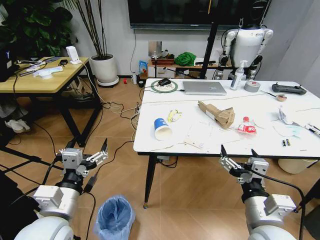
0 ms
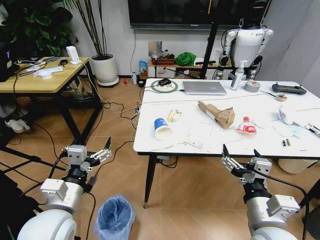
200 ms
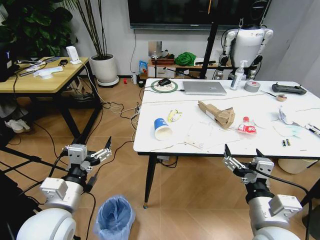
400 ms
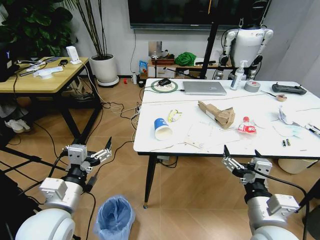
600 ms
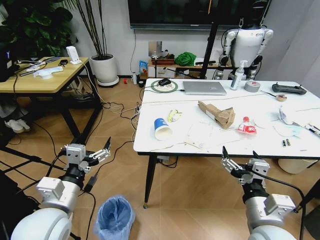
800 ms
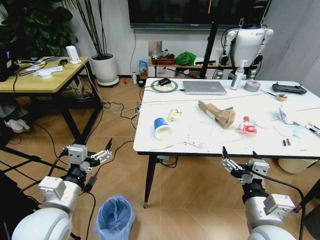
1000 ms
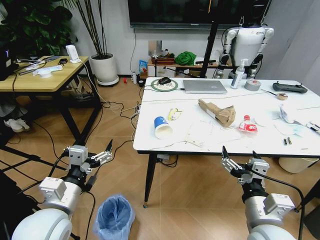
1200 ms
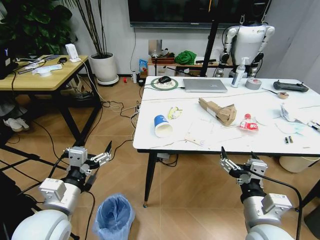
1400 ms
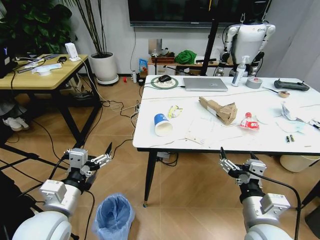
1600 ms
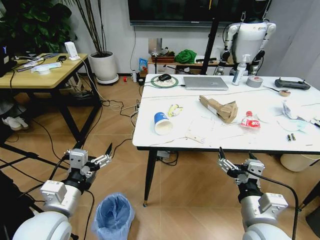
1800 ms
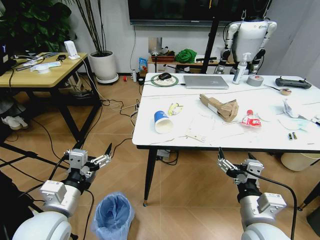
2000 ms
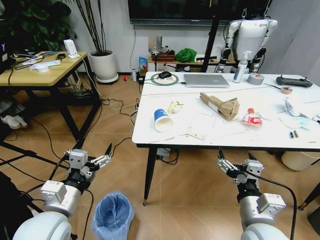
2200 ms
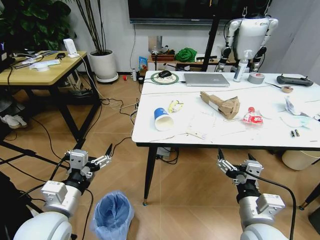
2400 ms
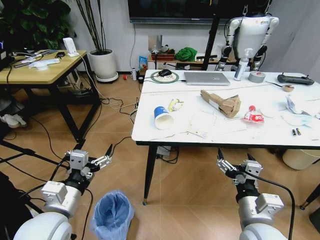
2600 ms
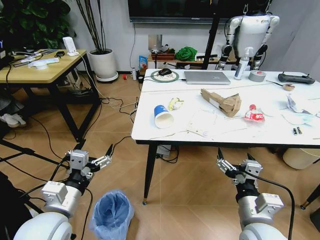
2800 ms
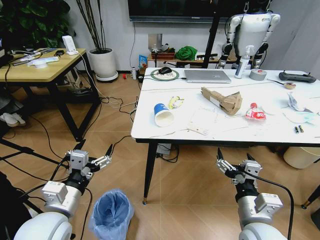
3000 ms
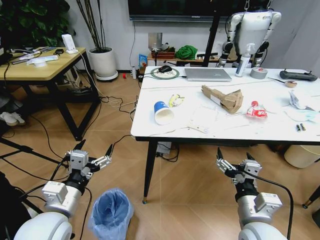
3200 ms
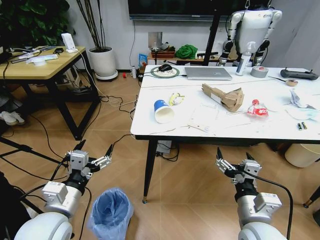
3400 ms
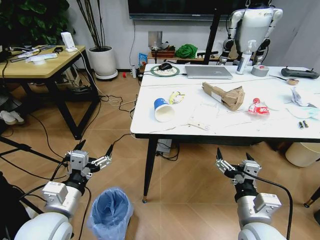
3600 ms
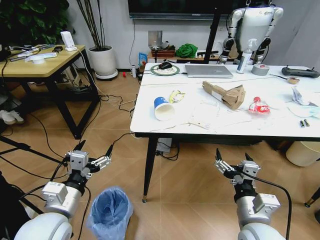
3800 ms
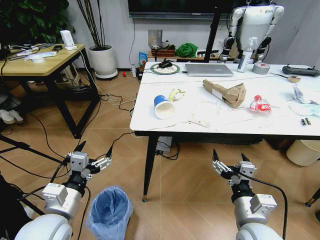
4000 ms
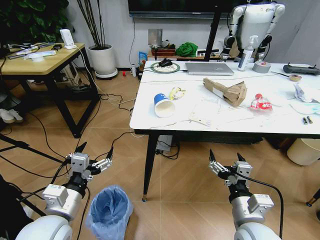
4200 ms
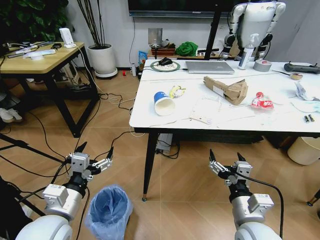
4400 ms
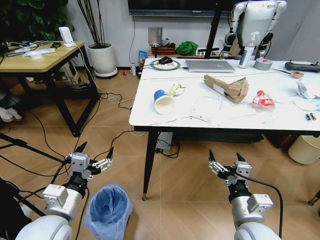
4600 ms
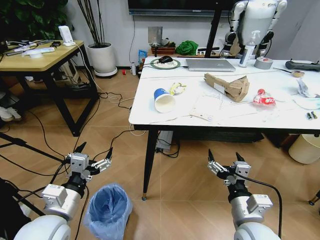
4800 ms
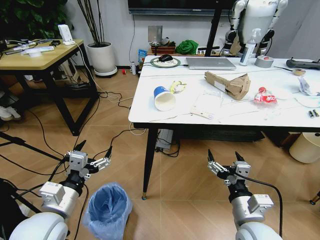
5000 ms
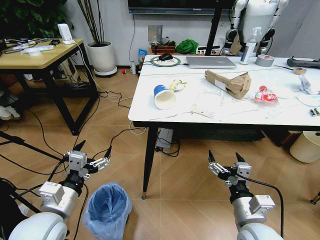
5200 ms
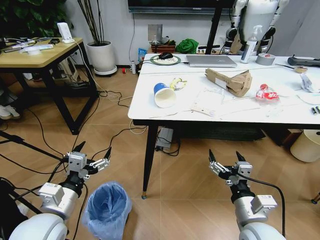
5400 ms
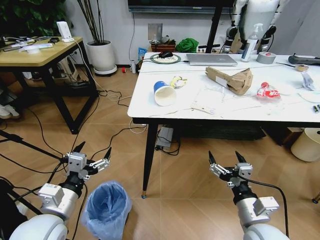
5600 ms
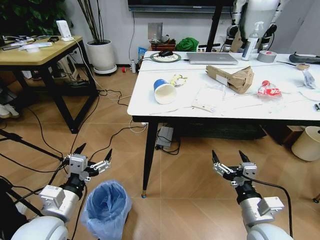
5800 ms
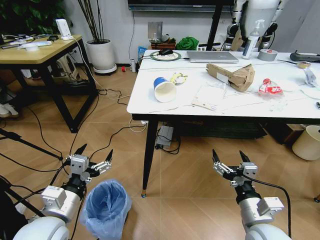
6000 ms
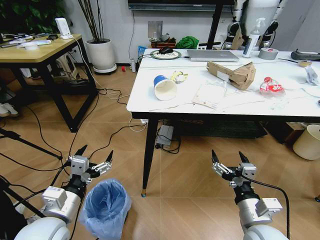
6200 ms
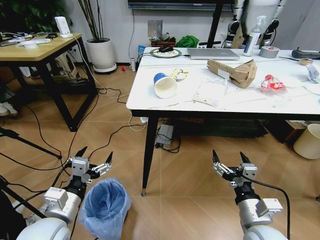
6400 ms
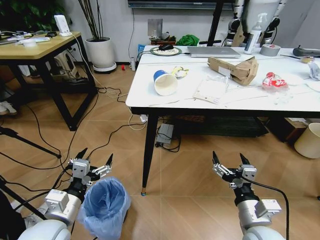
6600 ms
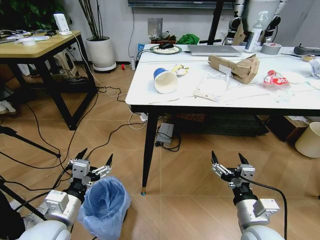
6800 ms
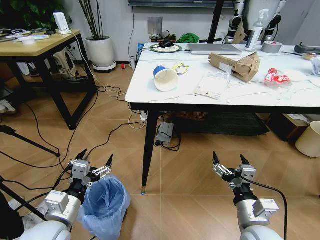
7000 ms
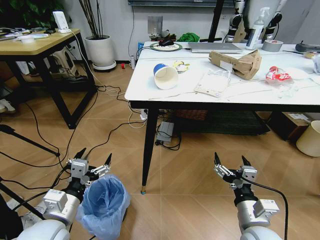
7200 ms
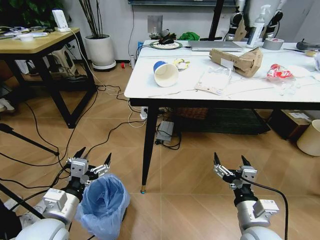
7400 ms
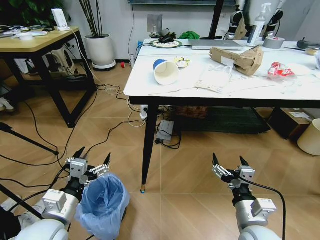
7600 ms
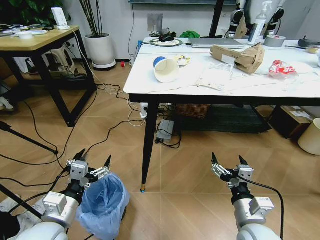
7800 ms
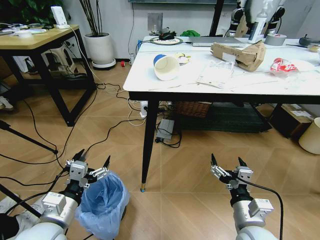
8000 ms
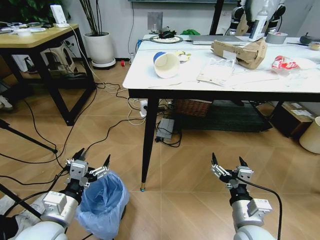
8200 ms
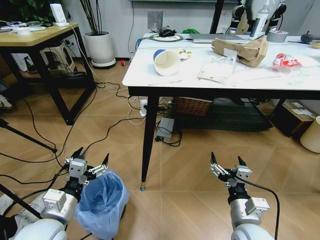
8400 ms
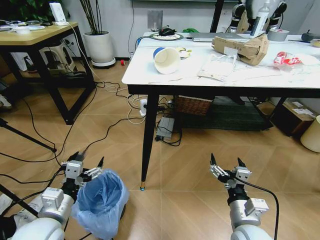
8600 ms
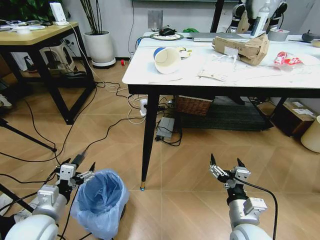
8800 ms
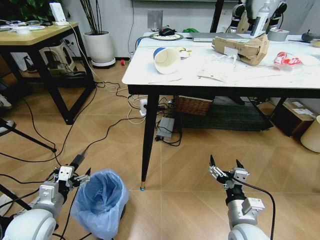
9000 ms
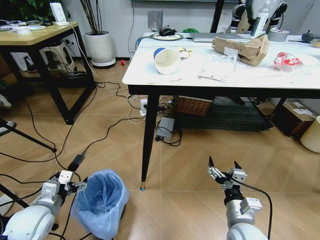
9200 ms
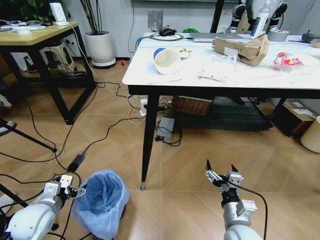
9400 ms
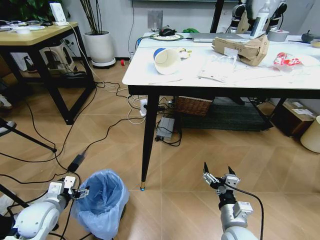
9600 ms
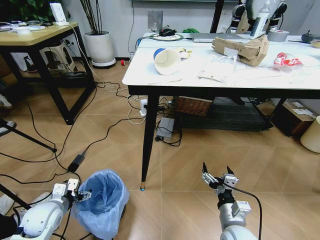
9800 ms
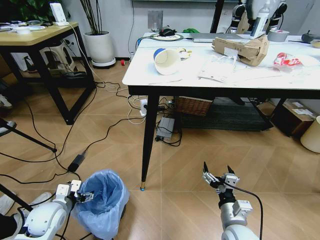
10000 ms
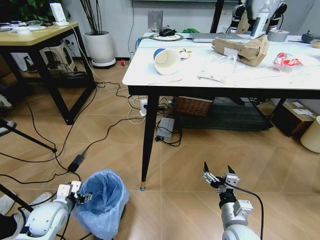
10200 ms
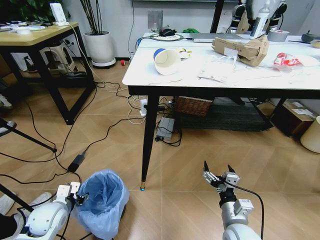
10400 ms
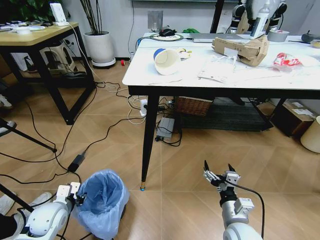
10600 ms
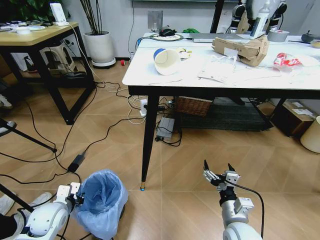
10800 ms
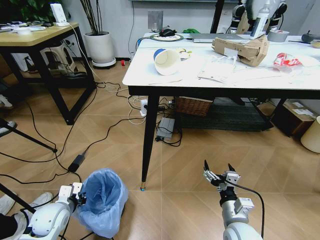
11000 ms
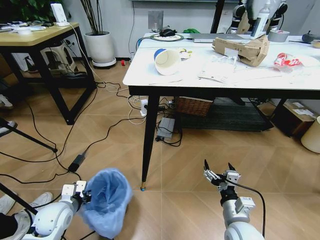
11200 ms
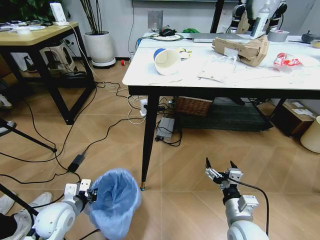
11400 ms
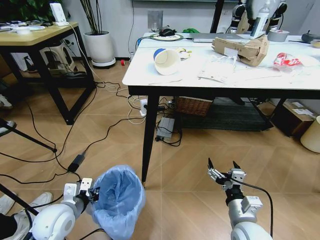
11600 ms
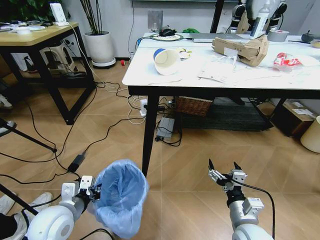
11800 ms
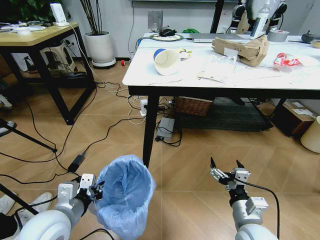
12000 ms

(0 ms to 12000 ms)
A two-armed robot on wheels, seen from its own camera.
Task of the whole recording: Pick up the trash bin and place the trash from the table into it.
7600 ms - 9000 ms: The left gripper goes approximately 5 cm to the left.
9000 ms - 10400 ms: The left gripper heads downward, covering approximately 5 cm, and closes up.
10400 ms - 12000 ms: The left gripper is displaced upward, to the right and backward by some 20 cm, and closes up; the right gripper shifts by roughly 5 cm.

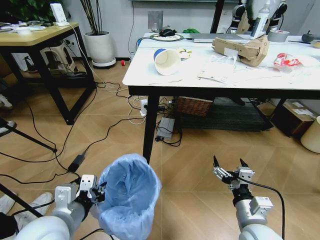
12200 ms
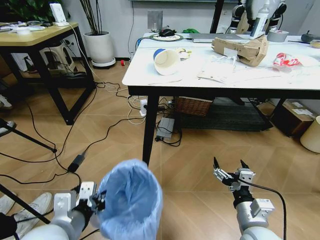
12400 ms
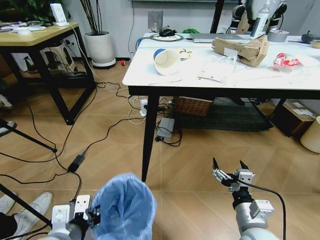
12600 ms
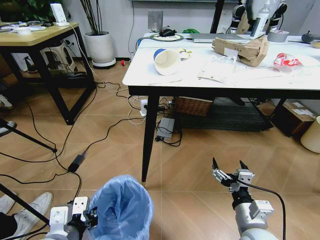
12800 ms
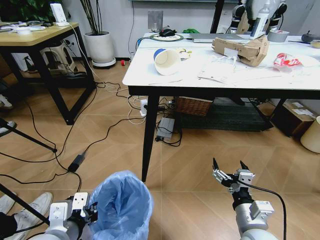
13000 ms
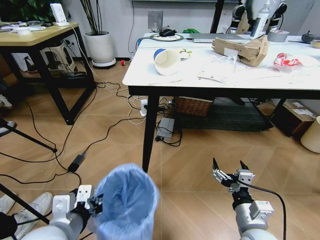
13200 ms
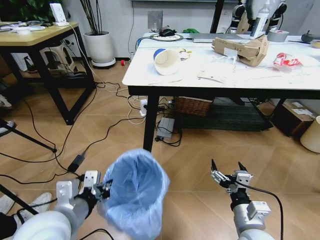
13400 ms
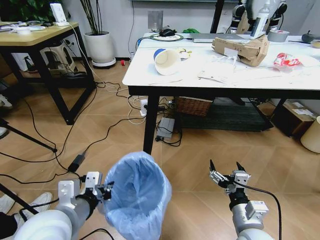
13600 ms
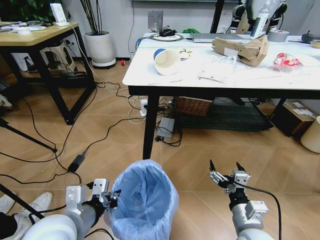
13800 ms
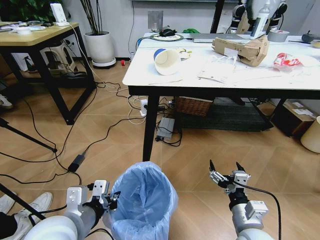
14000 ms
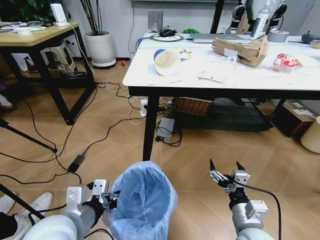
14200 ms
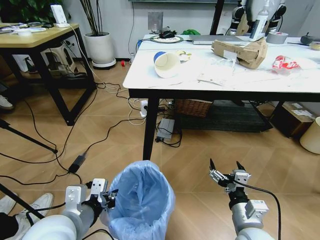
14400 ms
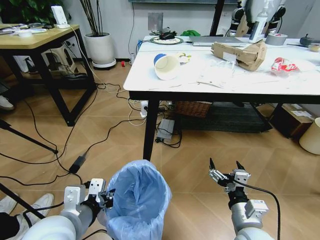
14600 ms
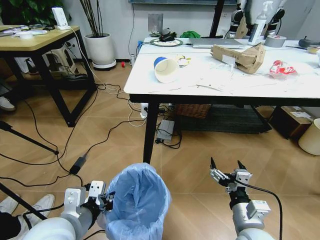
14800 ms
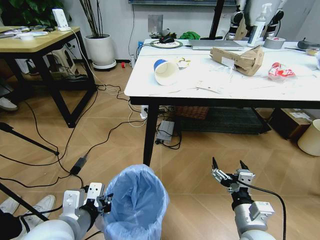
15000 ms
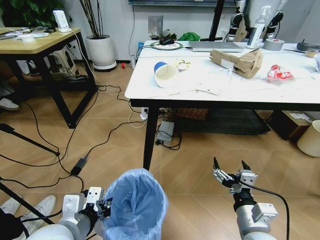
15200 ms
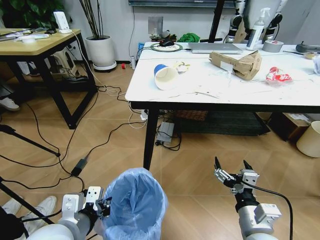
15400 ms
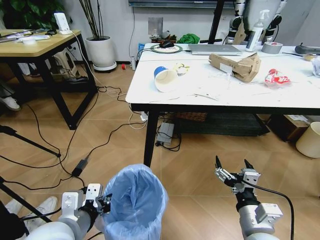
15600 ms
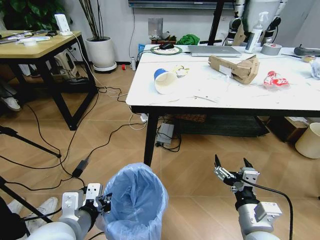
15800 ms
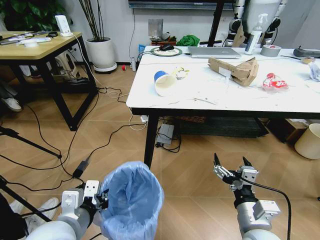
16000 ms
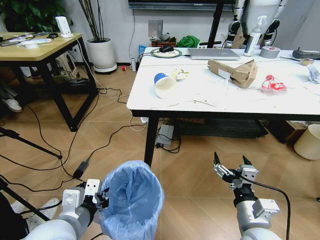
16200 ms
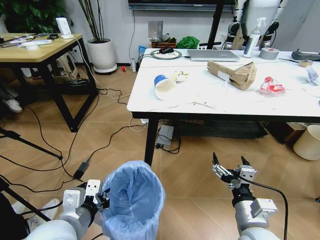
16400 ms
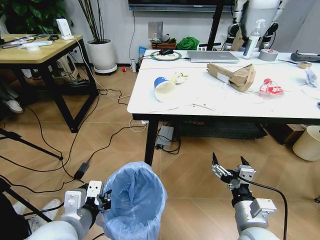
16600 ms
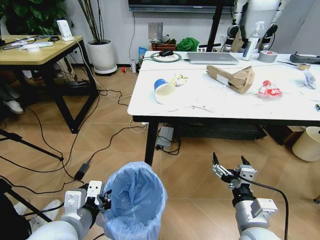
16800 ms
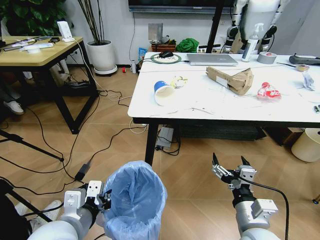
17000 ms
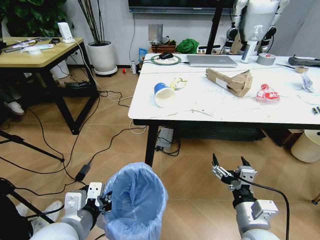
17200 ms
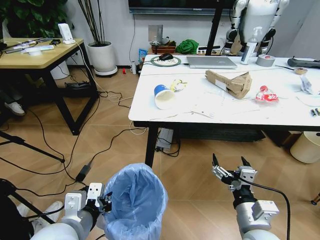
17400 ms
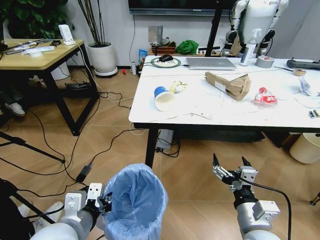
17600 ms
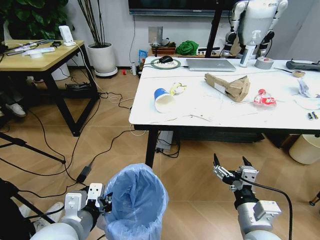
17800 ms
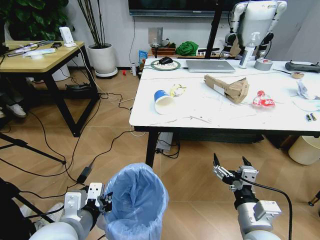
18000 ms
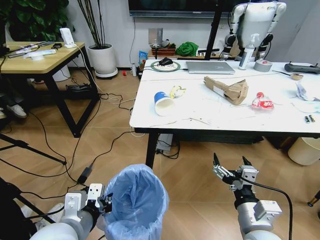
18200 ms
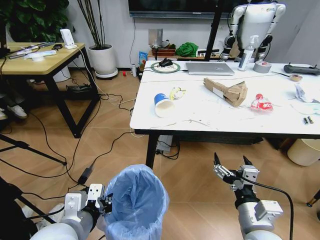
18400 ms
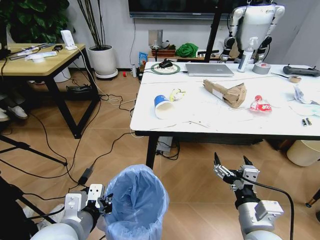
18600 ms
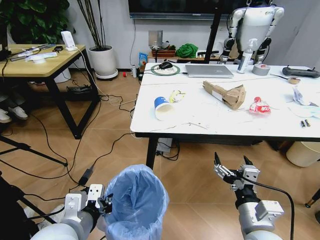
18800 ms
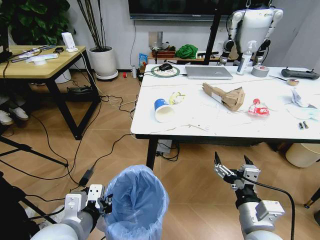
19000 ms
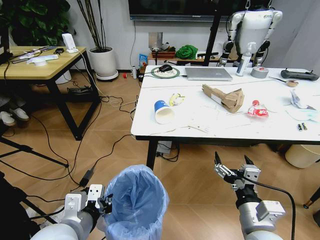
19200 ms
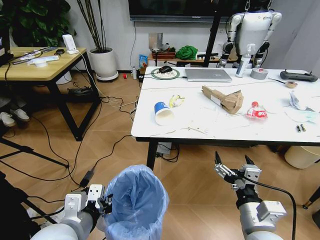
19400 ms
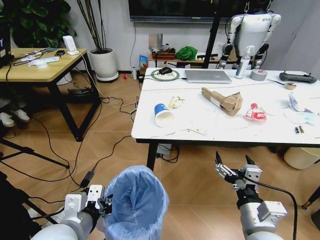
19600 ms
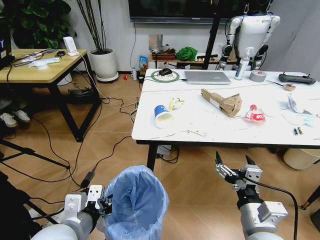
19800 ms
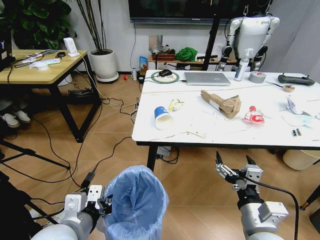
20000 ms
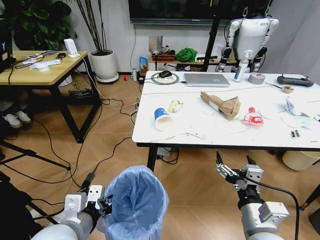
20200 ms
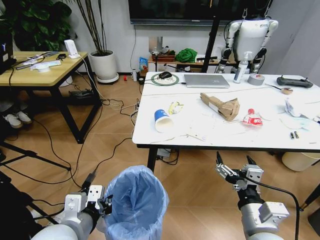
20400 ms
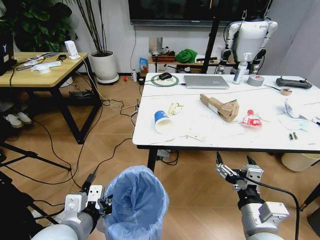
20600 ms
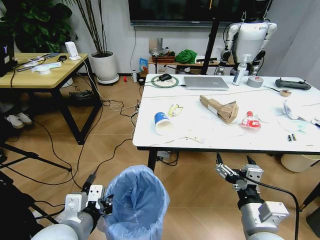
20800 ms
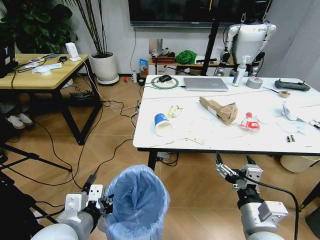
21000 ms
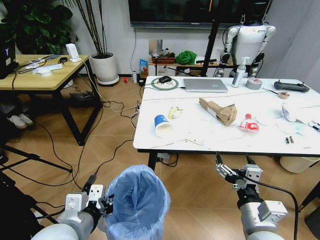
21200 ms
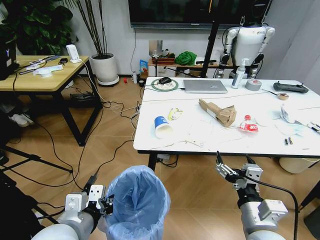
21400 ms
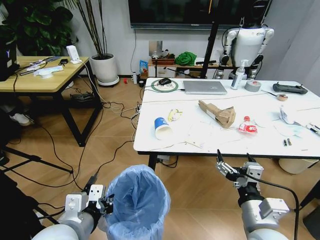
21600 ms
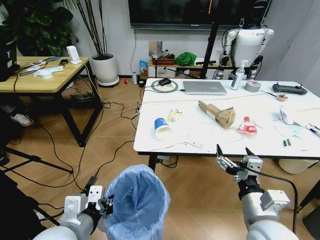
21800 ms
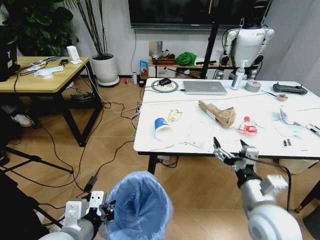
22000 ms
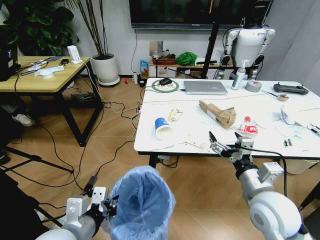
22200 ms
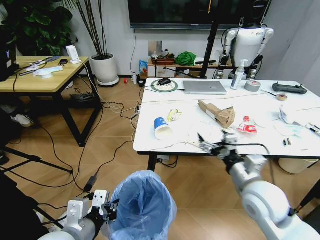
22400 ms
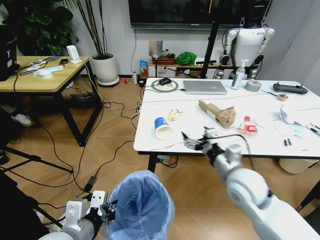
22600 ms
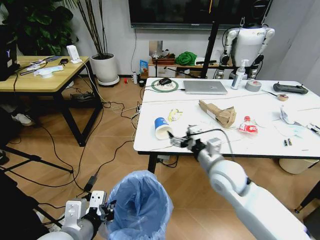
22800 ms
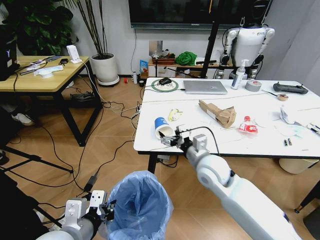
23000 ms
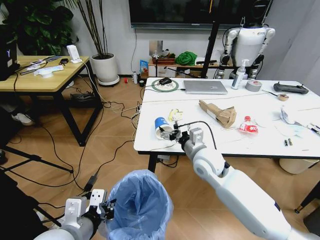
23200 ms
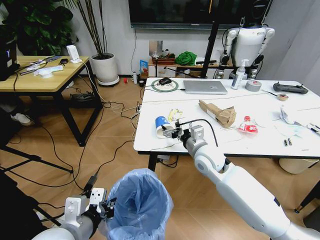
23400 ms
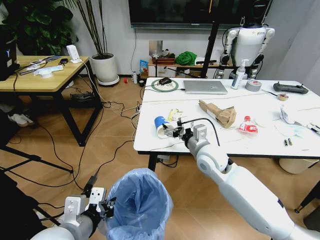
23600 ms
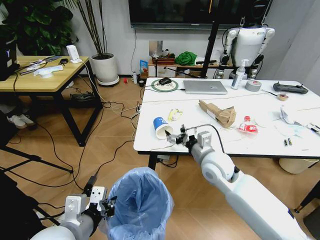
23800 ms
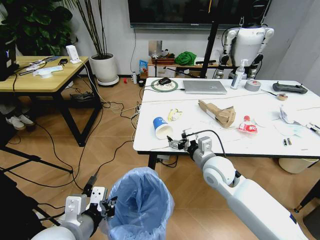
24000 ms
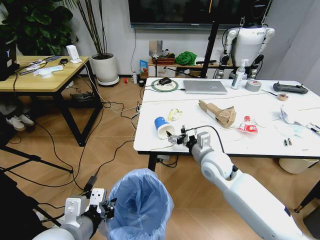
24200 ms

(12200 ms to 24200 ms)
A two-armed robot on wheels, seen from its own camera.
Task of the whole recording: Pick up the trash bin and place the trash from the table into it.
12200 ms - 13800 ms: There are only small adjustments of the grippers.
21200 ms - 22600 ms: The right gripper goes approximately 15 cm forward.
22600 ms - 24200 ms: The right gripper is displaced forward and to the left by about 10 cm.
